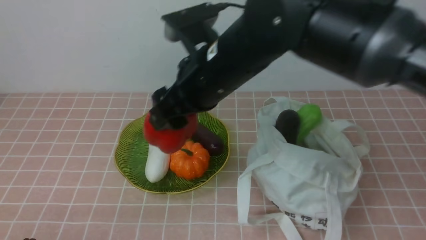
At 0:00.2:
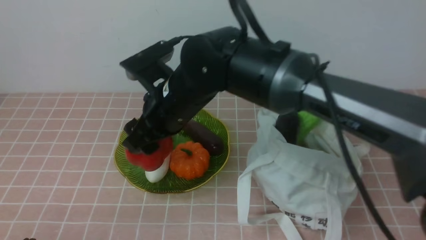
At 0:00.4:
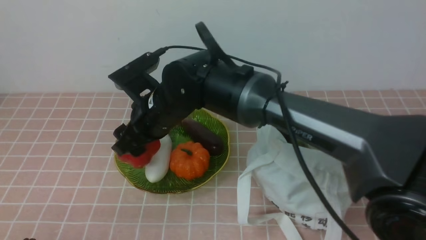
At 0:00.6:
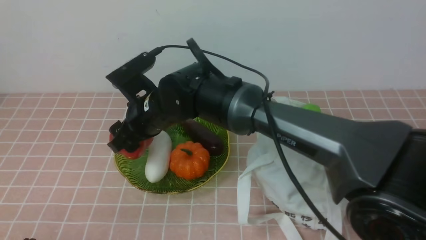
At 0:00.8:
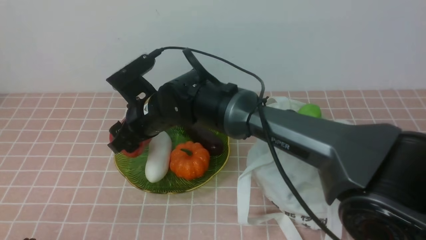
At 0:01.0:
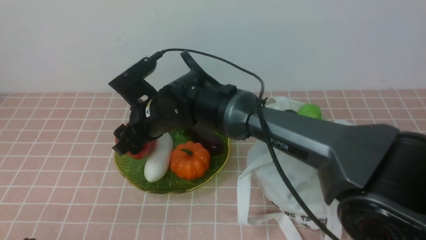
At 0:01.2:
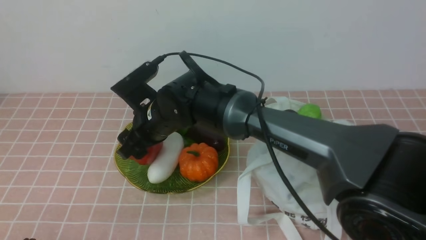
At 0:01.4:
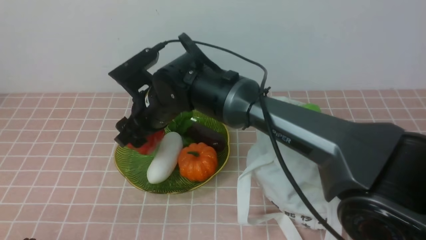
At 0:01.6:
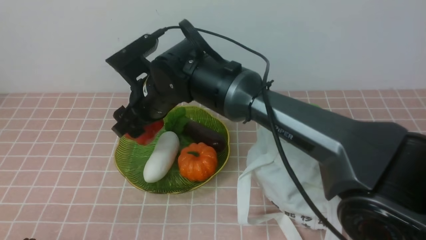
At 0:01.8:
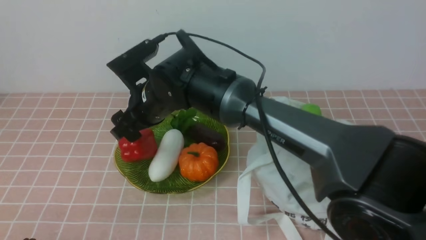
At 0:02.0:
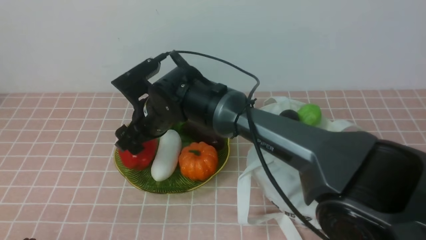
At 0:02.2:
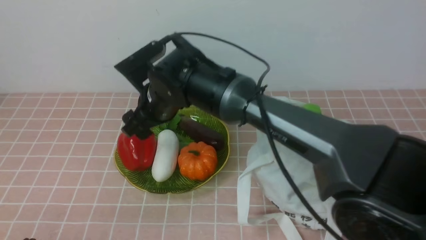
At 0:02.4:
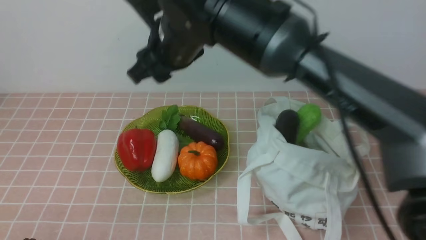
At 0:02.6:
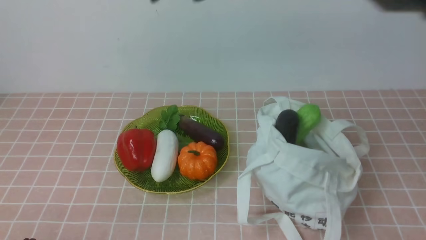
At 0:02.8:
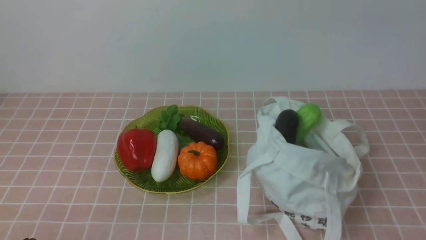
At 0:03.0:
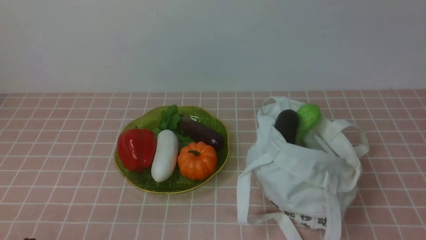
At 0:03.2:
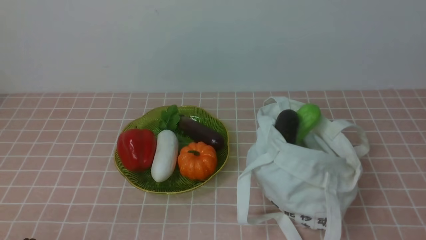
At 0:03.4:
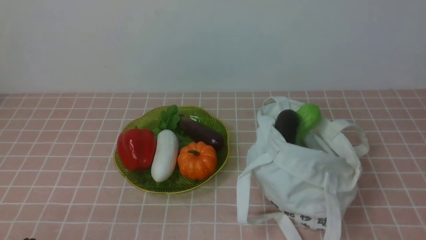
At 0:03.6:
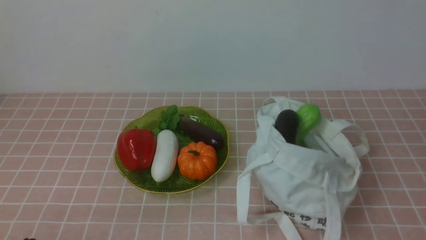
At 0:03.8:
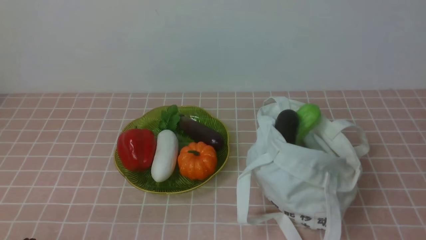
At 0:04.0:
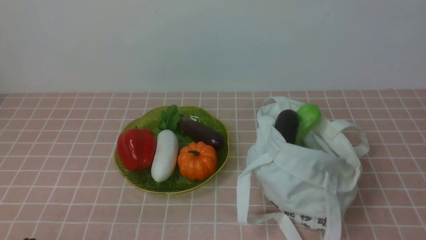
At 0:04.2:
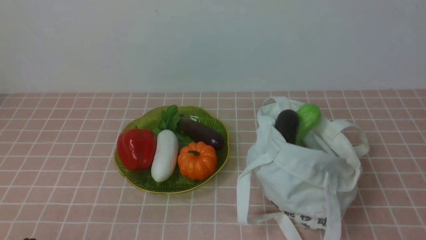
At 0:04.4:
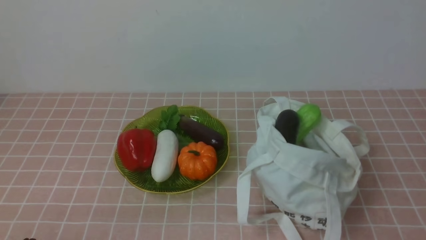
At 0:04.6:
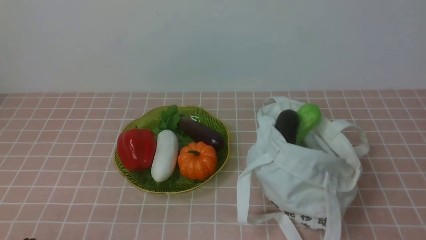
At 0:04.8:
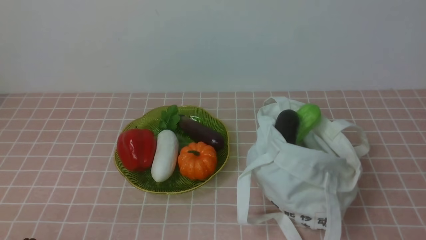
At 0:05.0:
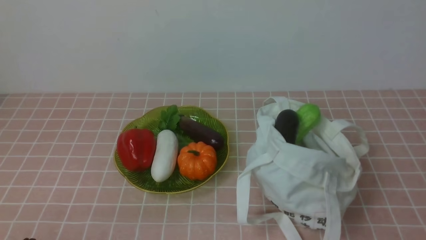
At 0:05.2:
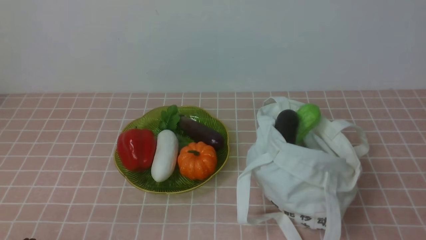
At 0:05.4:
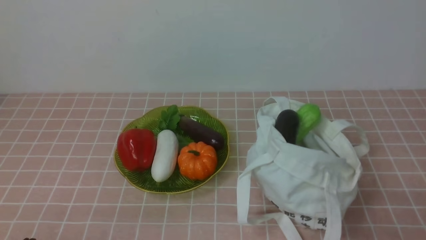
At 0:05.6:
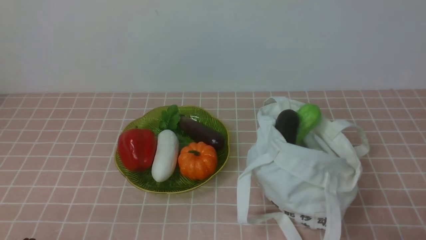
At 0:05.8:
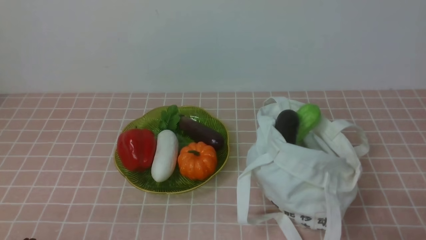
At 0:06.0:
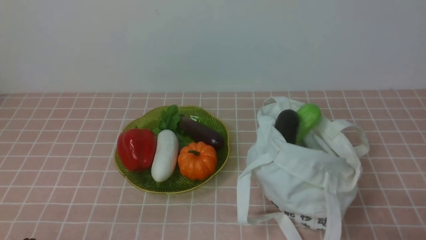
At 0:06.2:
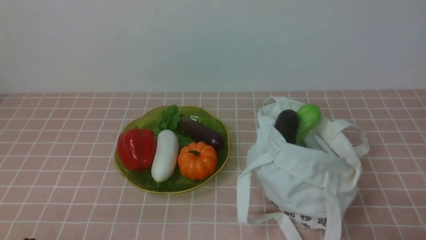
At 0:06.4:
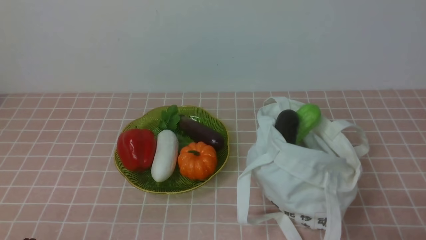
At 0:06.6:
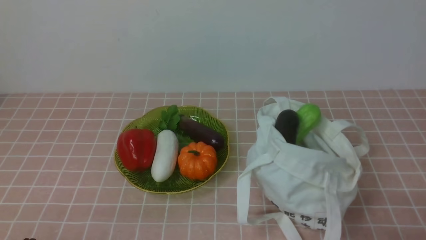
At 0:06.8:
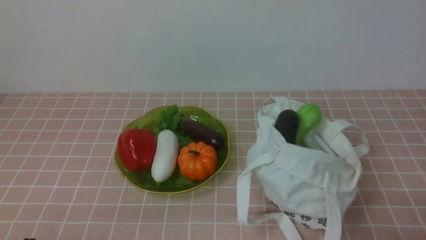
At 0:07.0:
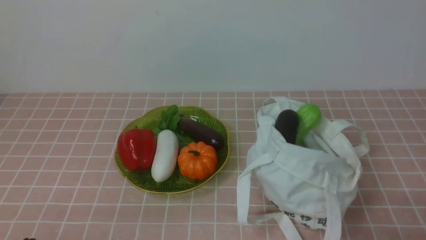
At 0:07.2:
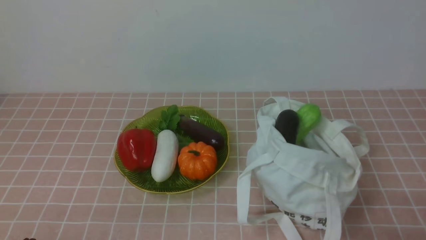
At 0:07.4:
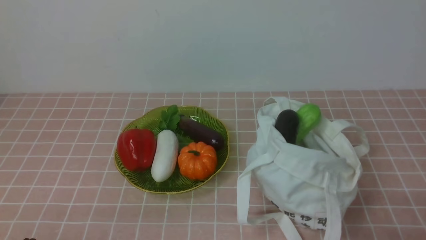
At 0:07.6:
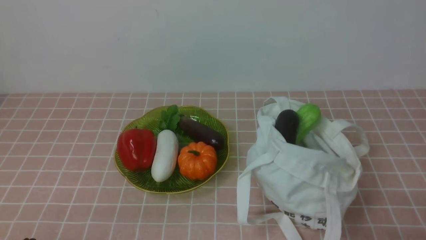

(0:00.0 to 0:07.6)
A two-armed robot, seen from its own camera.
Task of the whole recording: take vegetables from bag on pink coffee tablecloth place on plate.
Step, 0:00.0 - 0:02.2: Place the bell pepper on the plate with right gripper.
0:00.0 - 0:01.6: The right gripper moves to the left, downward and forward, roughly 15 cm.
0:01.6 - 0:03.0: The right gripper goes roughly 40 cm upward, to the right and backward, and closes.
0:06.0 - 0:07.6: The two grippers keep their place.

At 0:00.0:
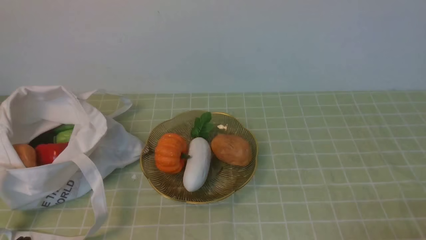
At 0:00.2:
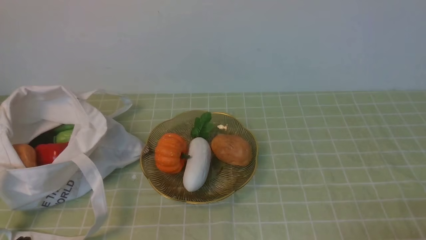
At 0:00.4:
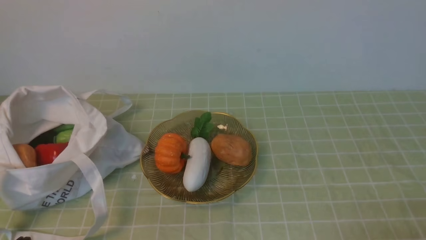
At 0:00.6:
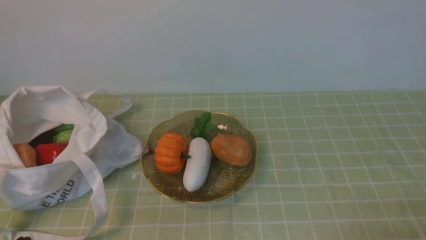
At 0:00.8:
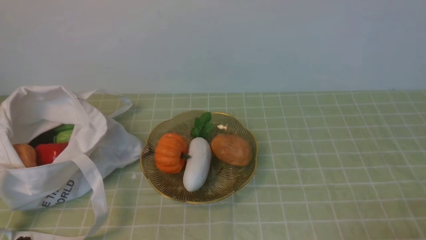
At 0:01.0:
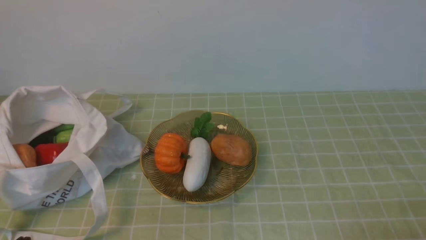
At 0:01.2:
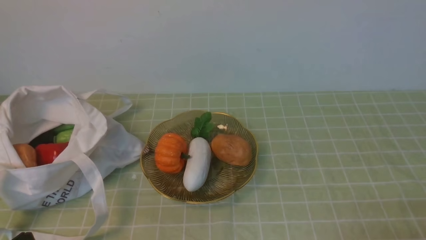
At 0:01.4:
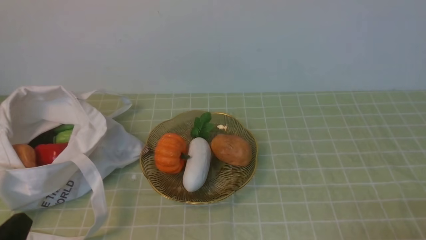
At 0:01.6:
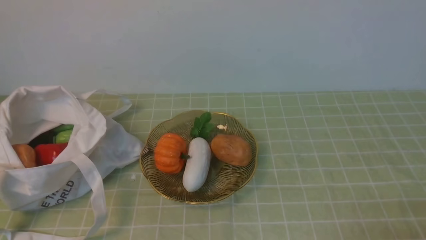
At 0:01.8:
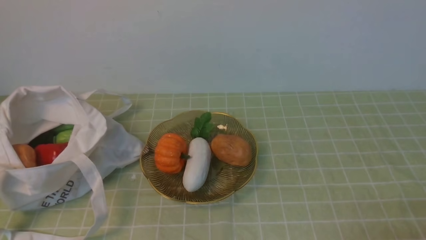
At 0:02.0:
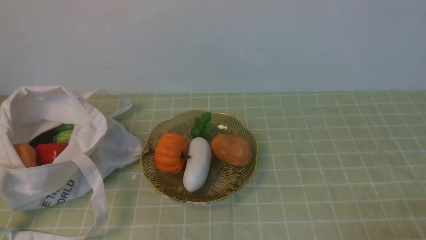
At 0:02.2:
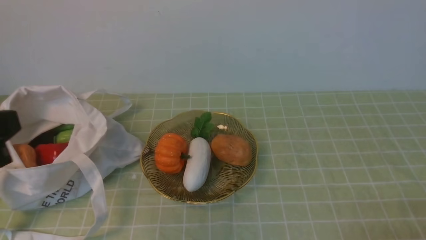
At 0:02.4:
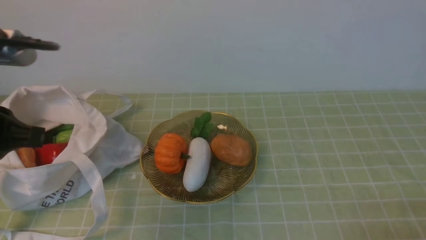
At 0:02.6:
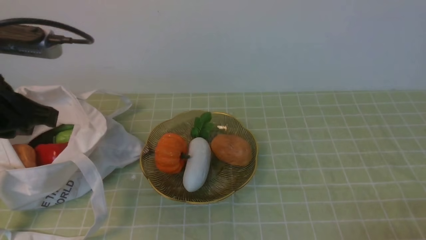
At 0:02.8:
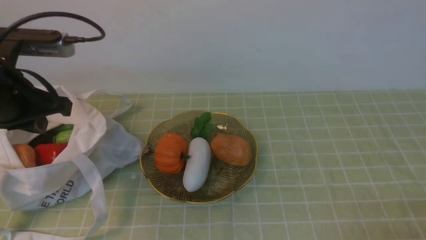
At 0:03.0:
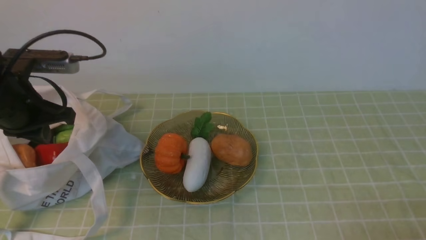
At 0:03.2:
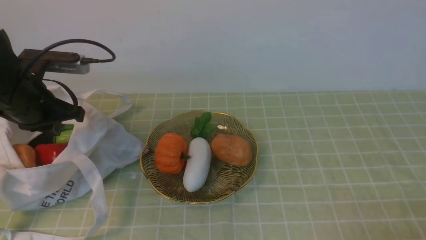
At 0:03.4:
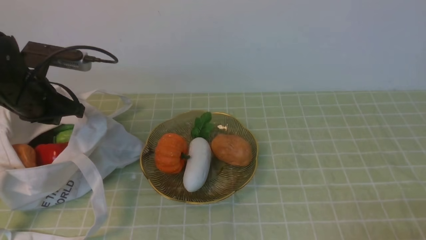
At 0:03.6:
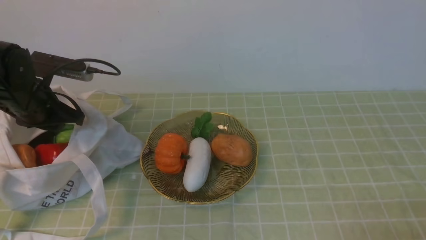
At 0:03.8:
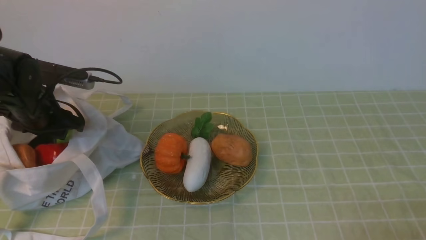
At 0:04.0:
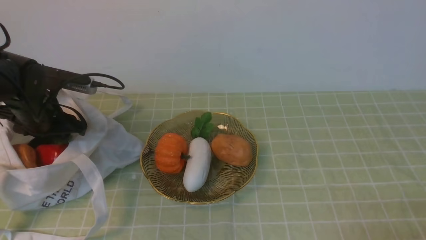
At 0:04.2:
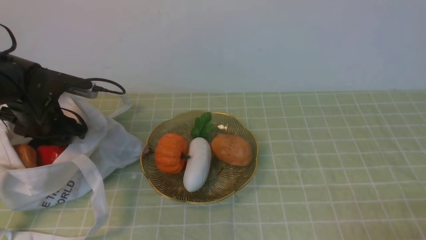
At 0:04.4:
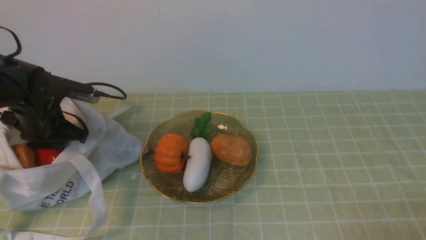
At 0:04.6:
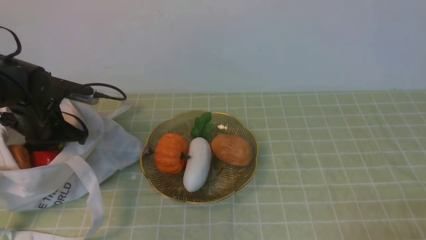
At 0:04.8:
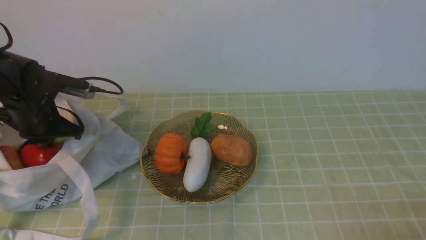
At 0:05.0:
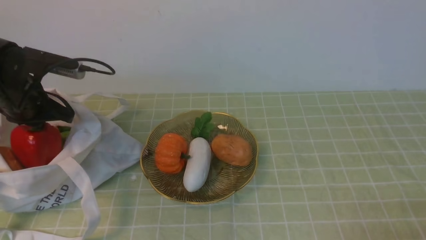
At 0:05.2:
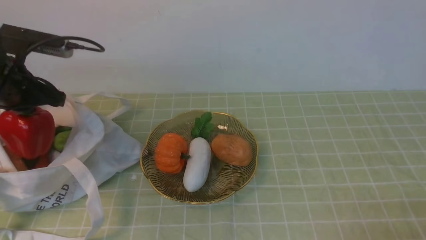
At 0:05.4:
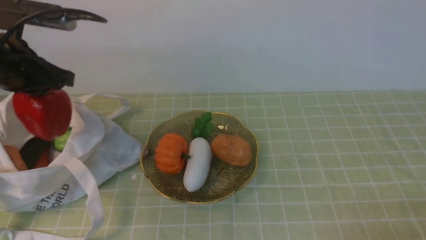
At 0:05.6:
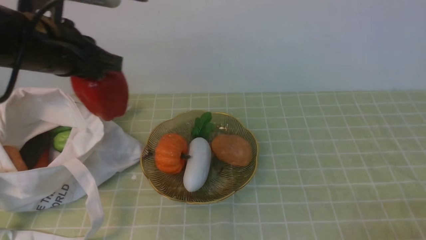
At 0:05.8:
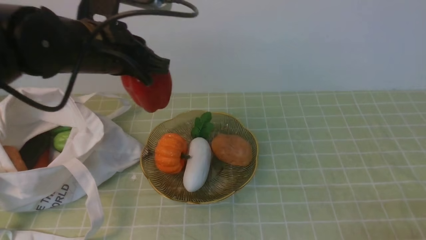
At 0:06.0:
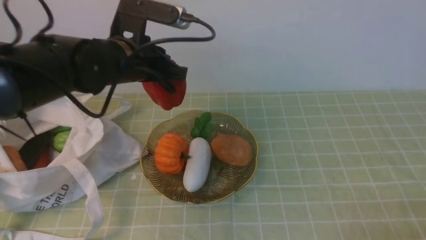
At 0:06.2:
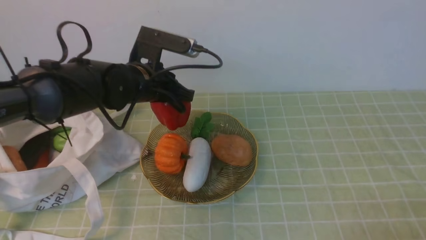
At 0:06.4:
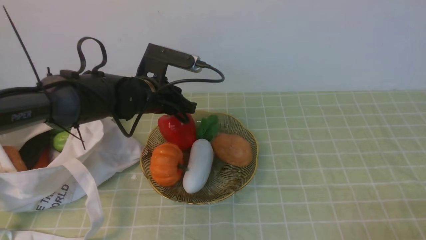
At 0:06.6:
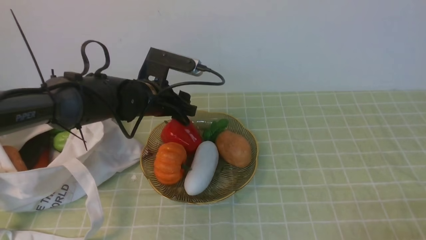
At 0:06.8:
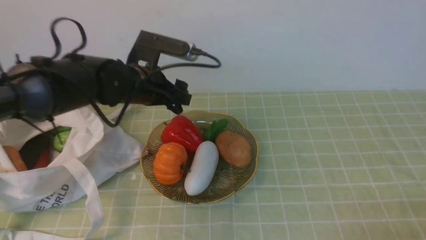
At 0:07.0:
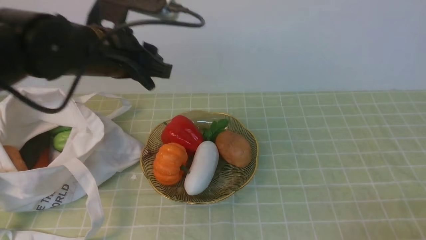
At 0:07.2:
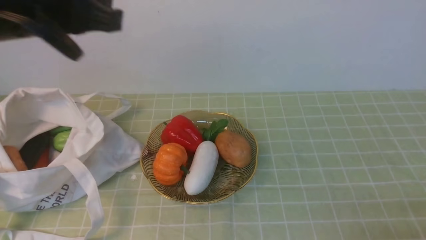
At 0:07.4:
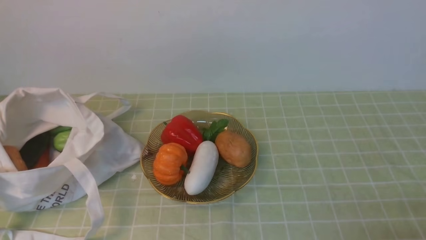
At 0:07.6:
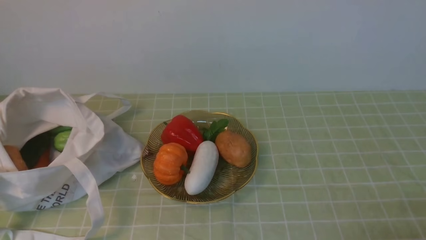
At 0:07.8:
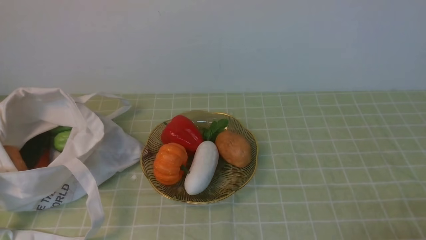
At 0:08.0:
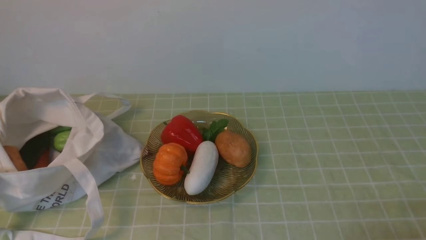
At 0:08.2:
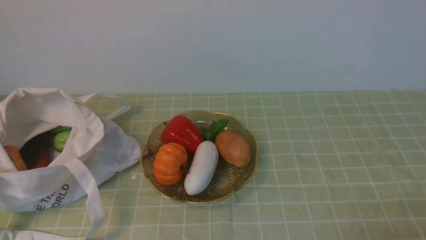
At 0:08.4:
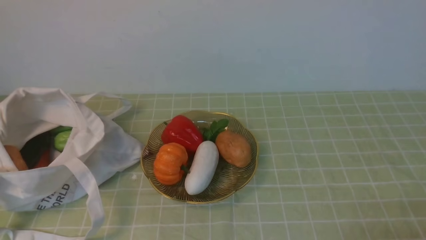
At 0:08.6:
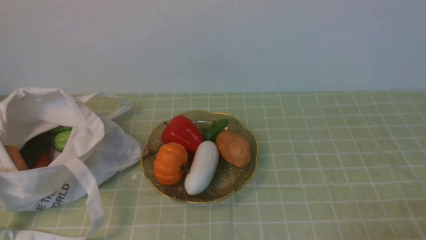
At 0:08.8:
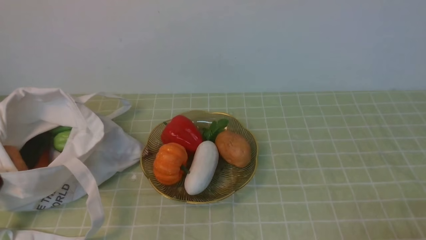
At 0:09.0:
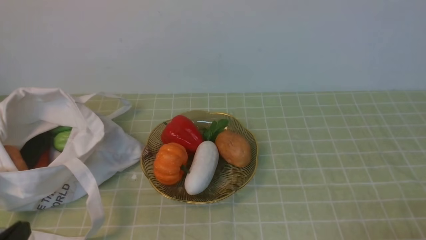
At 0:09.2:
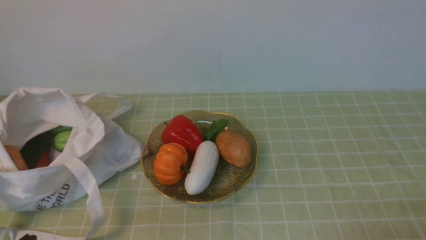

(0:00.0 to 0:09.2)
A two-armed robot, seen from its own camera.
Task of the whole recording: take vegetables from bag on green coffee tablecloth place on plate.
Step, 0:00.0 - 0:04.4: Grasp the bell pepper with left gripper.
Step, 0:04.6 - 0:06.6: Place the bell pepper on the plate with left gripper.
0:01.6 - 0:03.0: The left gripper shifts roughly 25 cm forward.
0:03.0 - 0:04.6: The left gripper shifts roughly 15 cm downward and forward, and opens, then closes once more.
0:04.6 - 0:06.2: The left gripper moves to the right and upward, approximately 20 cm.
0:06.2 - 0:07.6: The left gripper travels backward and upward by about 35 cm, and opens and closes again.
